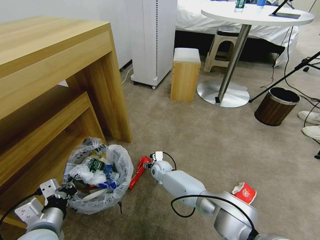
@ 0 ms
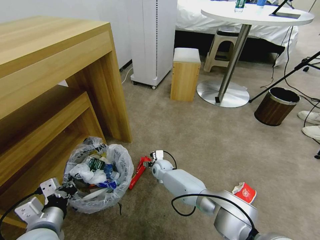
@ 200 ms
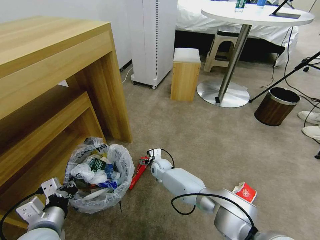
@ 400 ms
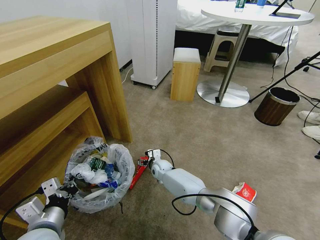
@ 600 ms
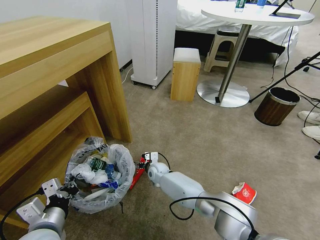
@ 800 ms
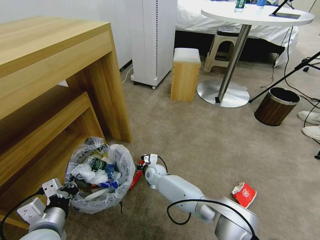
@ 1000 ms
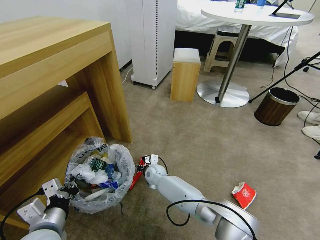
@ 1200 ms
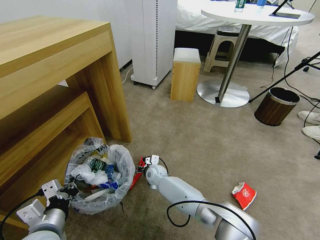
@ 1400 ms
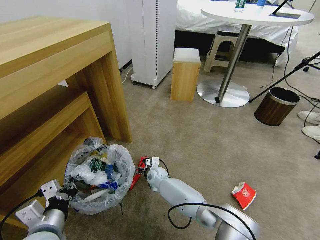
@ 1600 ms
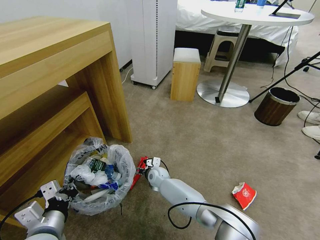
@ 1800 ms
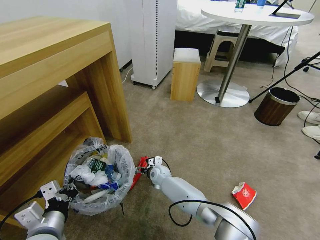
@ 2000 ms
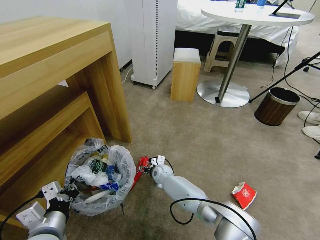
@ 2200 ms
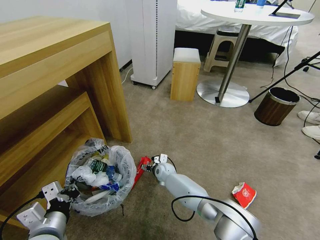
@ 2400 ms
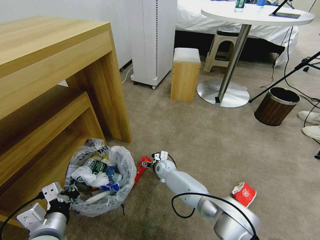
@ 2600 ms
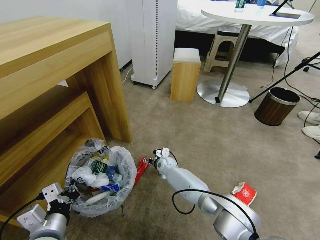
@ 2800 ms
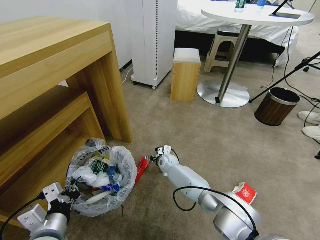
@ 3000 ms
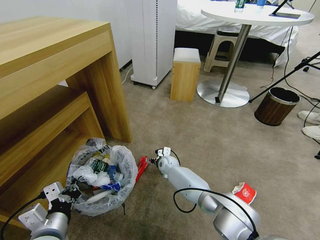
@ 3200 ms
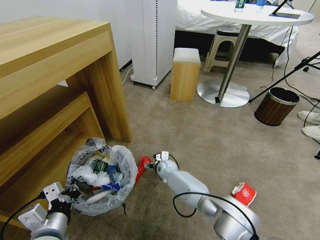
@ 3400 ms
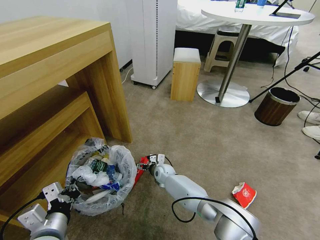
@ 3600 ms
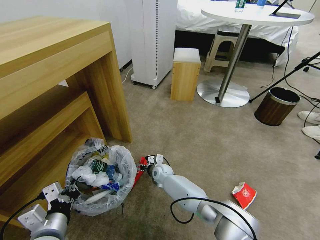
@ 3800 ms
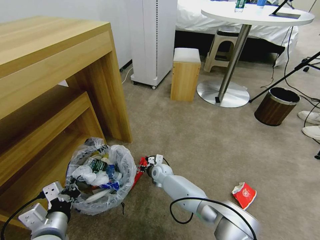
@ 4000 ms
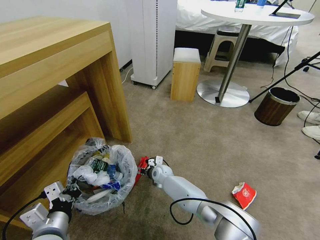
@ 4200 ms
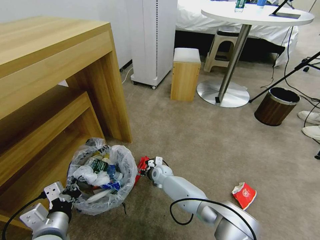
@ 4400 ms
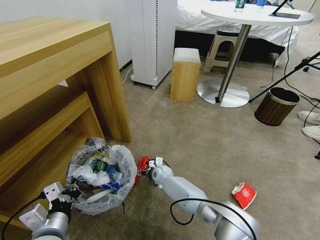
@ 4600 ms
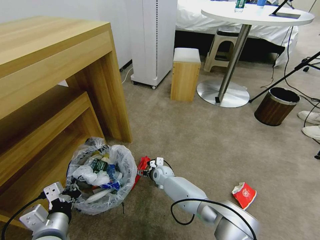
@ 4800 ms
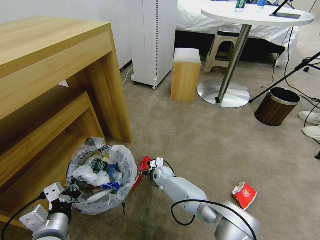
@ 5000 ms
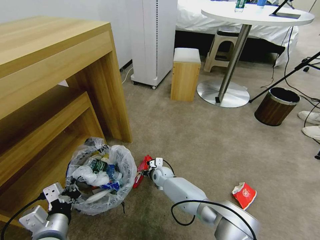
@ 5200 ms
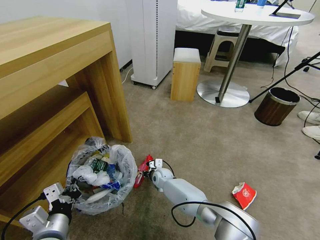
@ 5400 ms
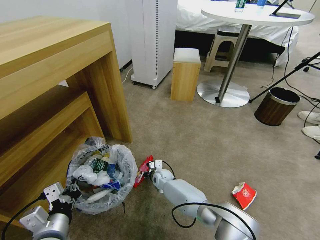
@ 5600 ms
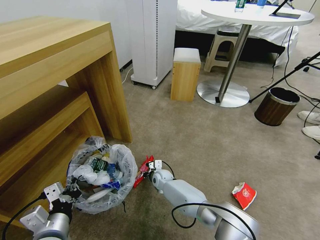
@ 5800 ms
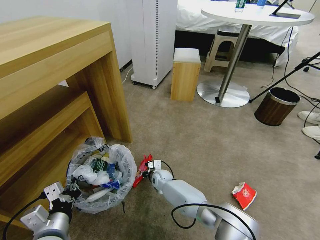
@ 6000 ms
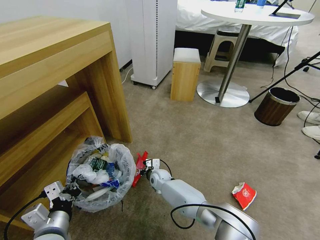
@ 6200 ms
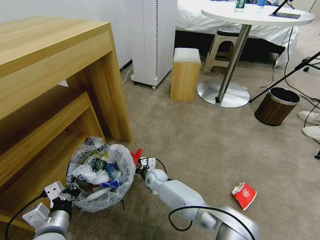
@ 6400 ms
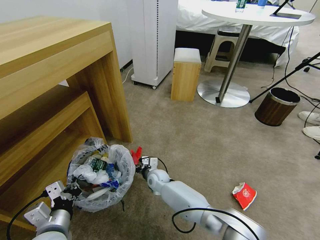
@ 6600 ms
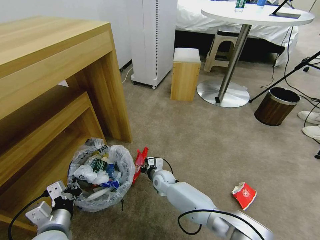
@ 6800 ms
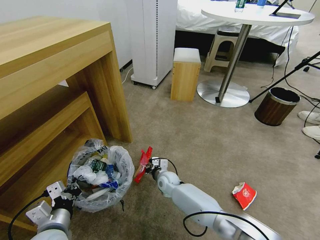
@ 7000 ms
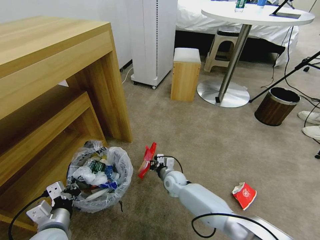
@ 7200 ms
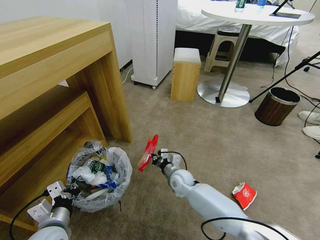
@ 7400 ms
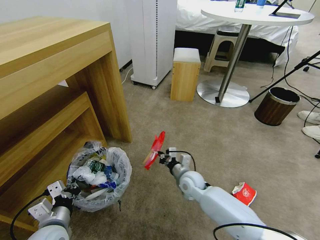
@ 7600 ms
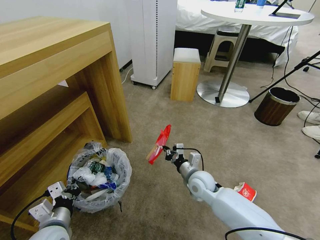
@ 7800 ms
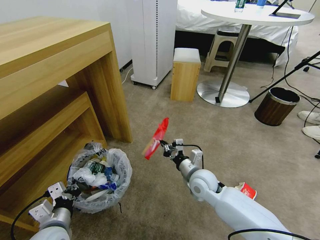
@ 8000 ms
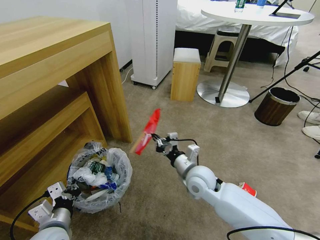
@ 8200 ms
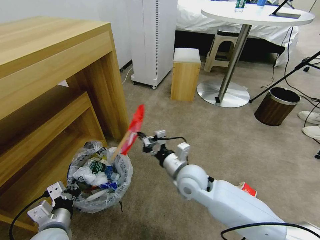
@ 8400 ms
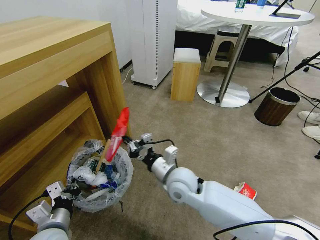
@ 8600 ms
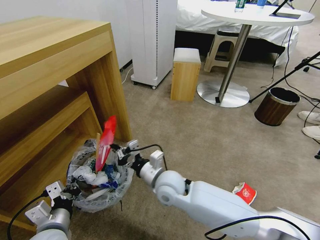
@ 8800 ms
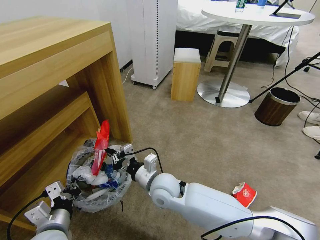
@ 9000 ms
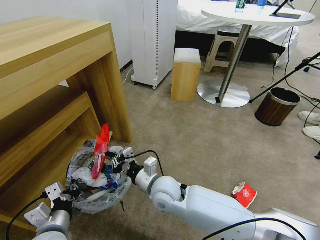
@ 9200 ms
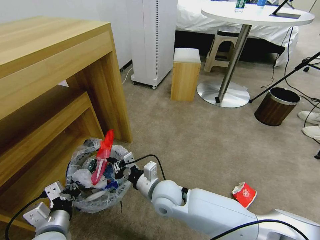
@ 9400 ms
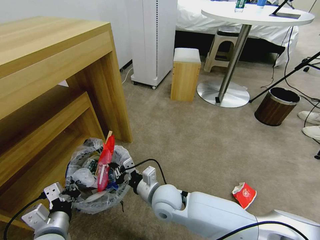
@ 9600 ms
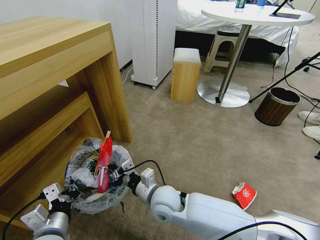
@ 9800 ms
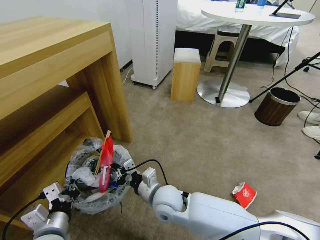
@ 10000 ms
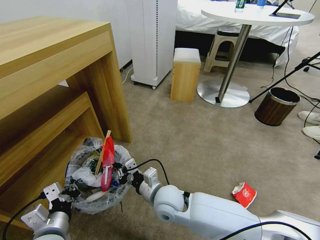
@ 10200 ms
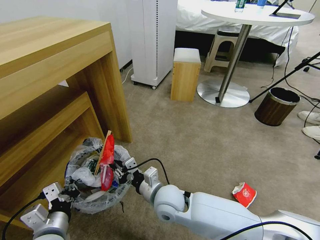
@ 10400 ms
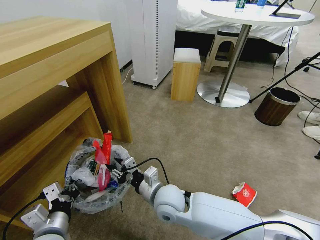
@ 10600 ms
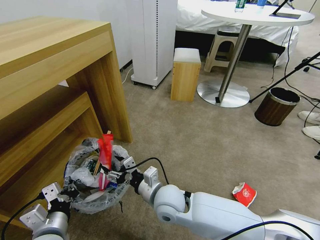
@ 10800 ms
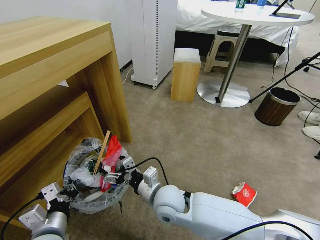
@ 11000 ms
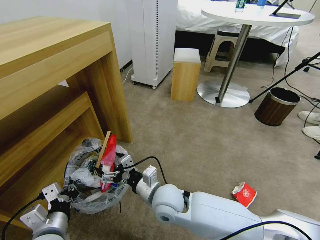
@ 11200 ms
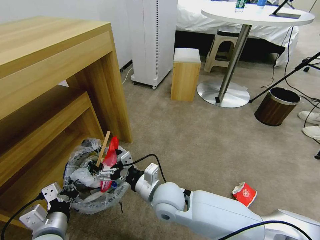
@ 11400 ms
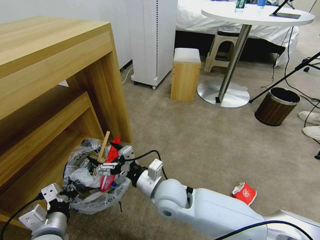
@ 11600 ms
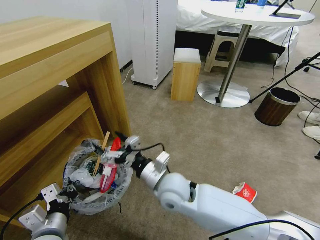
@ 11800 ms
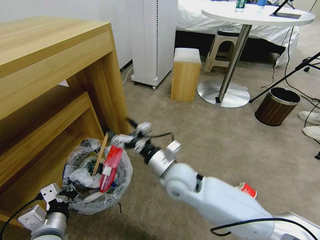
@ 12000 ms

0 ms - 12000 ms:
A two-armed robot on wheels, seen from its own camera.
Task of the whole recording: Pick up the trash bin and place the garbage on the floor into it.
0 ms - 1600 ms: The grippers move only a little.
1600 ms - 3000 ms: The right gripper is displaced forward and to the right by roughly 10 cm.
3000 ms - 4400 ms: The right gripper moves approximately 5 cm.
4400 ms - 6000 ms: The right gripper closes up.
6000 ms - 7600 ms: The right gripper heads to the right, upward and backward, covering some 15 cm, while the left gripper shifts by about 5 cm.
7600 ms - 9000 ms: The right gripper moves to the left, upward and backward, some 15 cm.
9000 ms - 10400 ms: The grippers make only small movements.
10400 ms - 12000 ms: The right gripper shifts roughly 10 cm upward, and opens up.

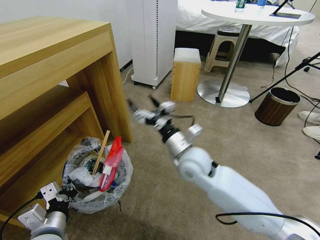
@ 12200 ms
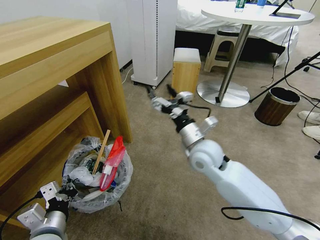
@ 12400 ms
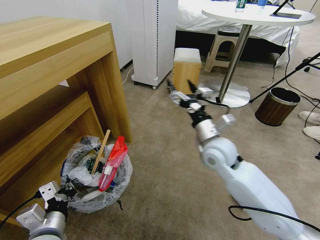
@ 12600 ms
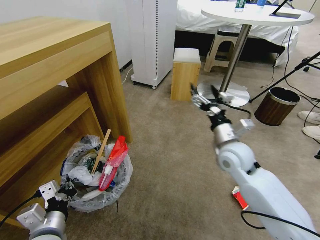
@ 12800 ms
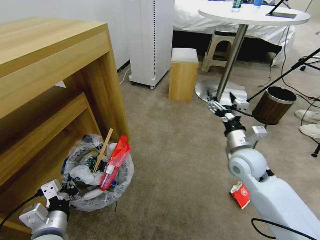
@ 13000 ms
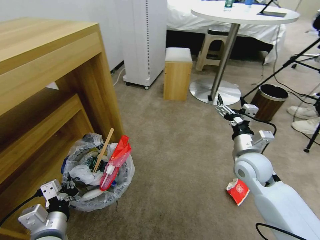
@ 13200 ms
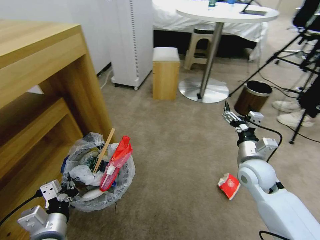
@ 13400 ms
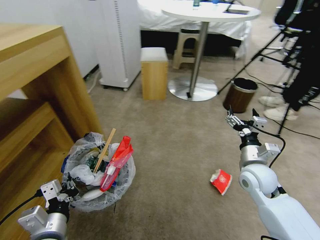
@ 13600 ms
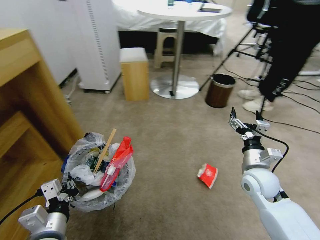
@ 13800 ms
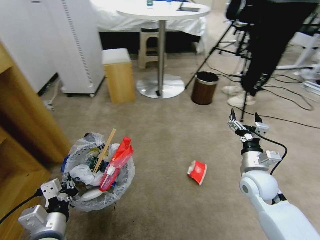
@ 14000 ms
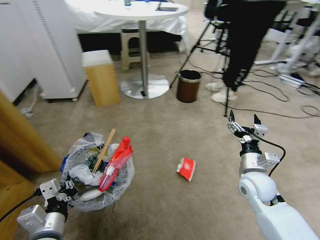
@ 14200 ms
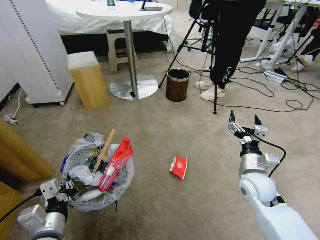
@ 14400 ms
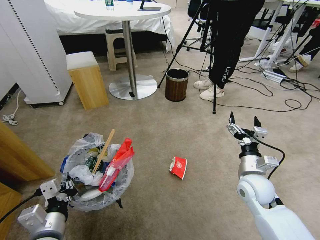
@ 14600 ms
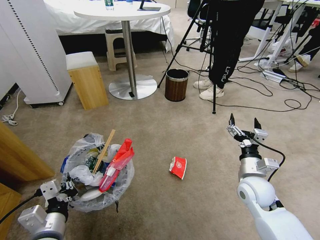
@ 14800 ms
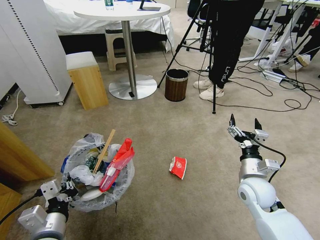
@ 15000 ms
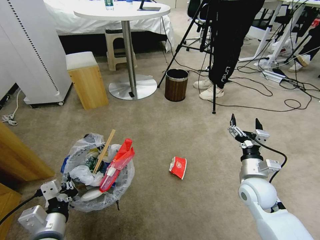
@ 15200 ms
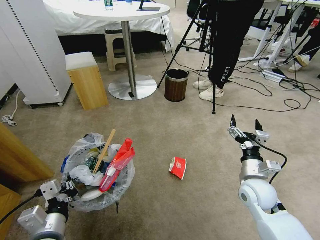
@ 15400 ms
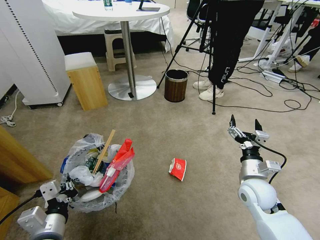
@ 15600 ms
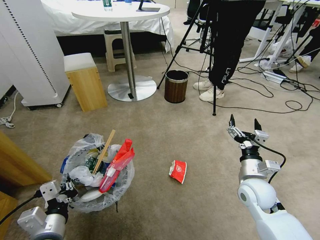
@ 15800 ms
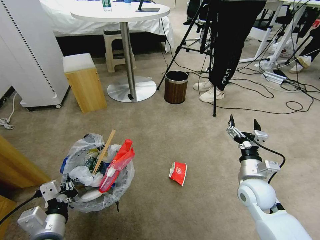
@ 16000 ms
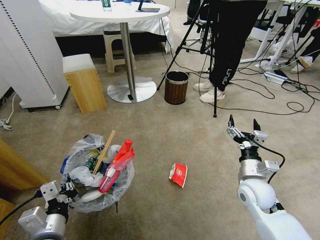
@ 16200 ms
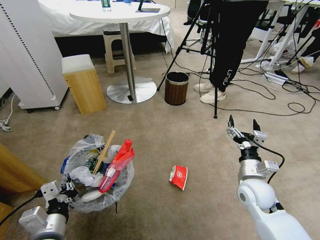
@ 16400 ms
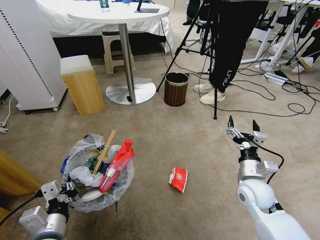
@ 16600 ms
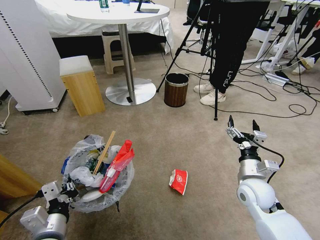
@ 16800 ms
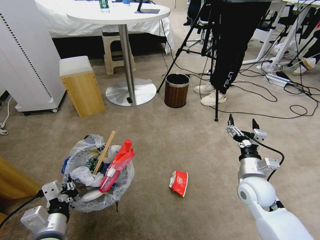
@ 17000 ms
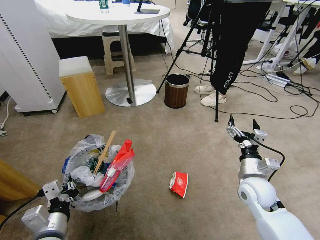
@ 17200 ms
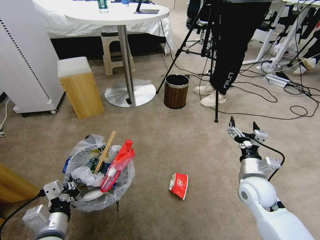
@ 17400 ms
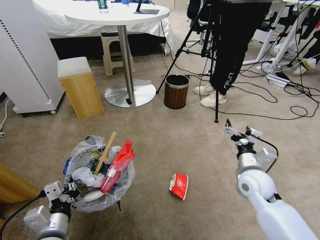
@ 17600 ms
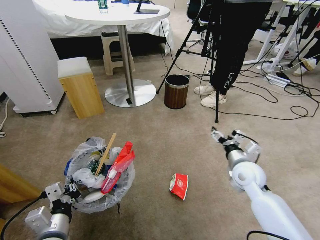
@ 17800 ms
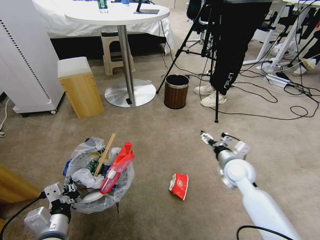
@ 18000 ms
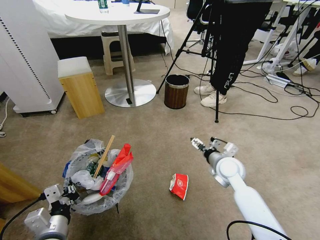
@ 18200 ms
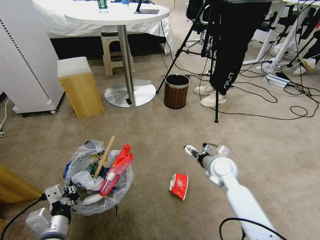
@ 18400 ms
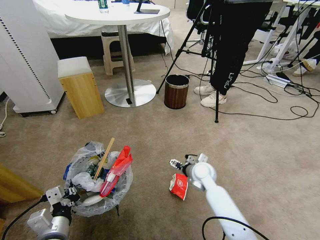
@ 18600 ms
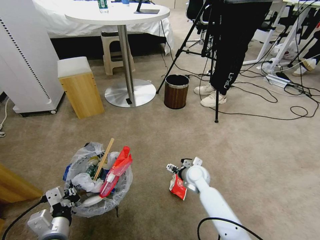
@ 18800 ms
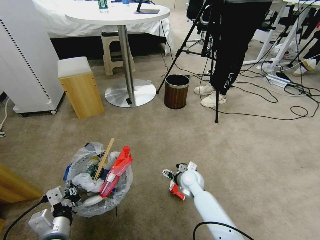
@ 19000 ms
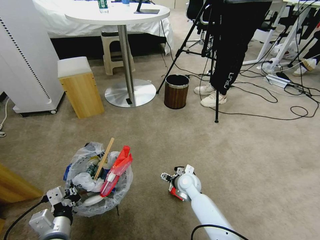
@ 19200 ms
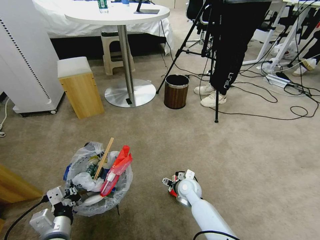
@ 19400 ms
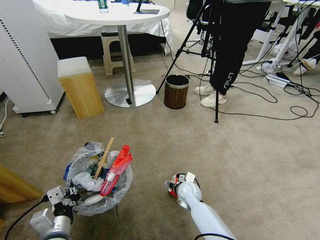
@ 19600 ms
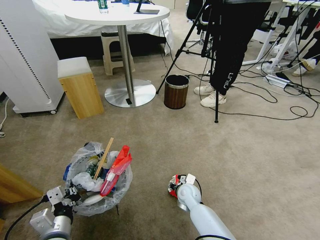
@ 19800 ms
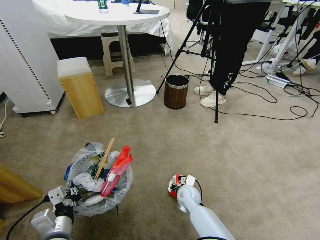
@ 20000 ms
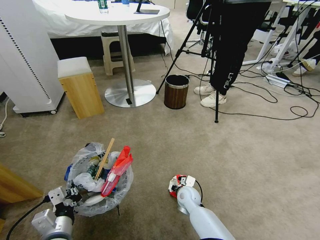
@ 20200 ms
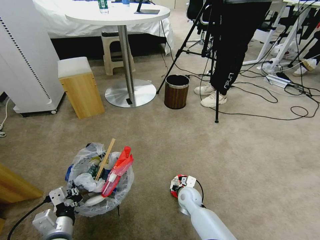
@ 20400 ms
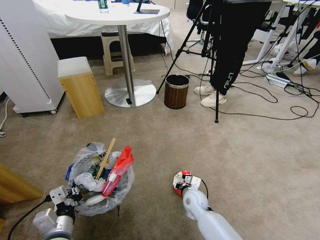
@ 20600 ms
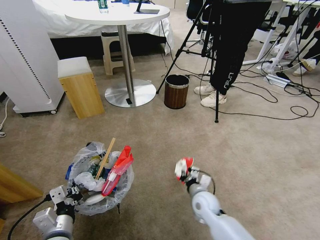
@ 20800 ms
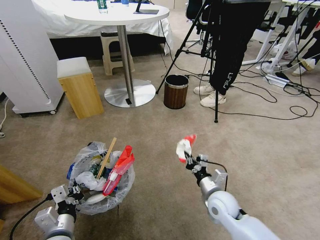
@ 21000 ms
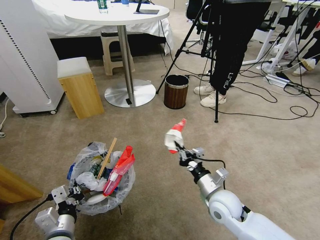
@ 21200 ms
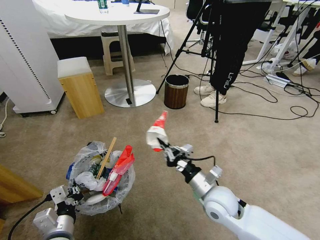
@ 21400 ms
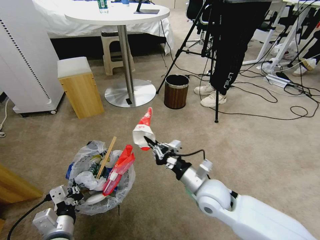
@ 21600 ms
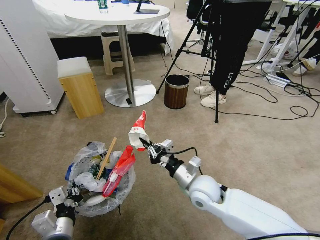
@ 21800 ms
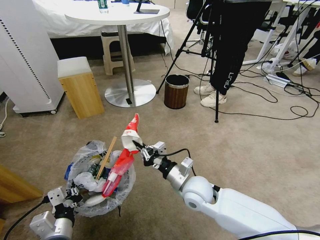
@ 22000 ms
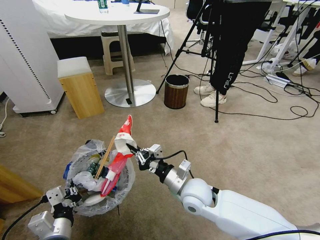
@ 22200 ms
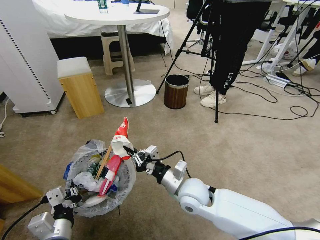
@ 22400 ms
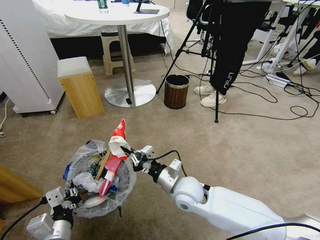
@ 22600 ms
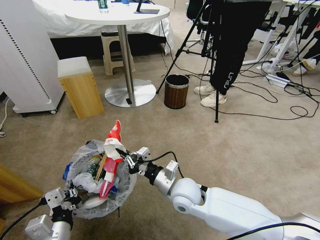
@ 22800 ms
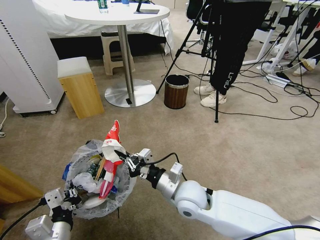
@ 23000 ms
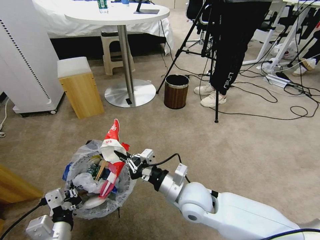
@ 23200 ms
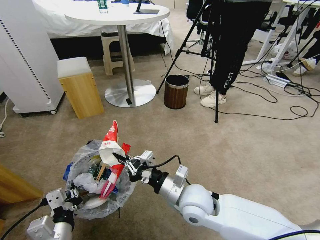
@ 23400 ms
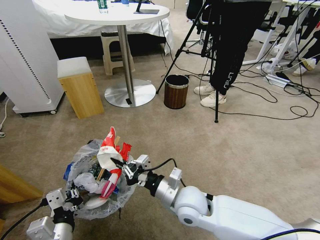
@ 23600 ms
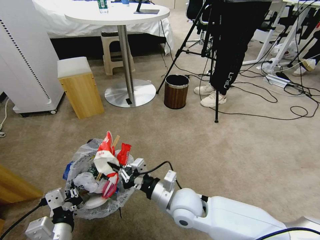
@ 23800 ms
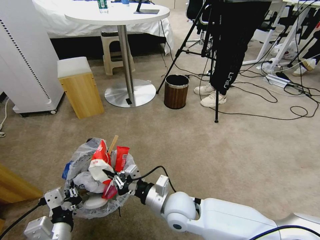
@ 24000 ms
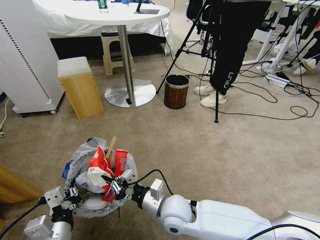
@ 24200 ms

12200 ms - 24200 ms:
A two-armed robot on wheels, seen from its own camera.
Task of the whole recording: Pick up the trash bin and place the garbage on the floor into it.
12200 ms - 13800 ms: The right gripper heads to the right, covering about 20 cm.
16600 ms - 18200 ms: The right gripper goes some 10 cm forward and to the left.
18200 ms - 19800 ms: The right gripper goes about 20 cm downward and to the left, and closes up.
19800 ms - 21200 ms: The right gripper is displaced upward, backward and to the right by roughly 15 cm, and closes.
21200 ms - 22600 ms: The right gripper moves to the left, some 10 cm.
22600 ms - 24200 ms: The right gripper travels backward by roughly 5 cm.
